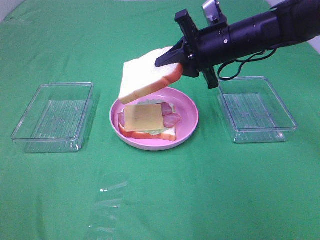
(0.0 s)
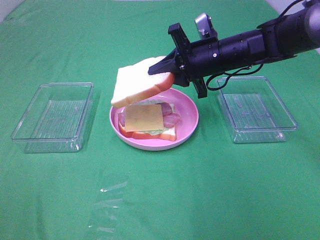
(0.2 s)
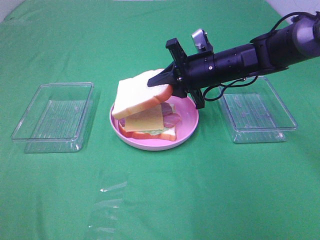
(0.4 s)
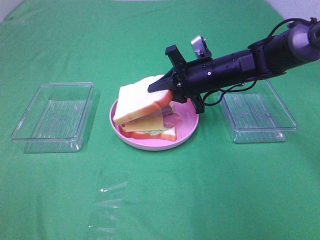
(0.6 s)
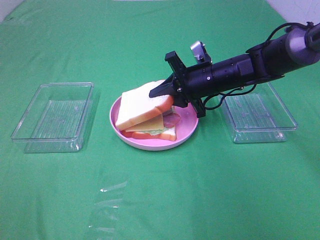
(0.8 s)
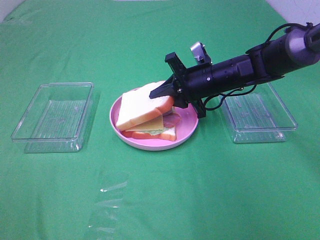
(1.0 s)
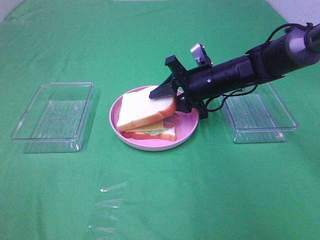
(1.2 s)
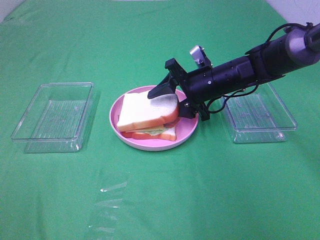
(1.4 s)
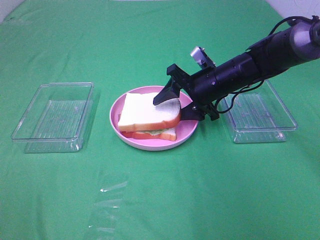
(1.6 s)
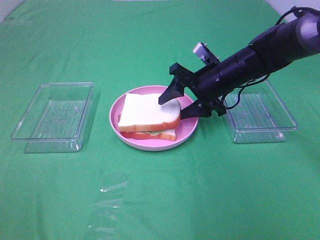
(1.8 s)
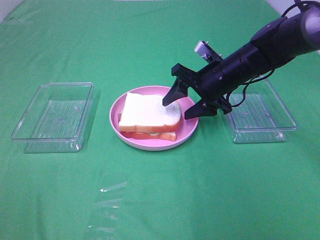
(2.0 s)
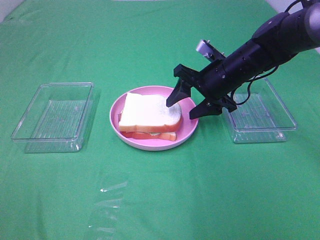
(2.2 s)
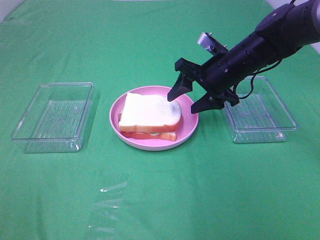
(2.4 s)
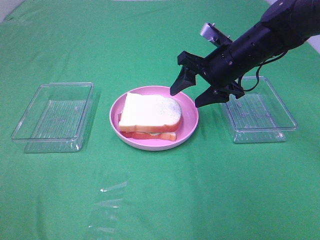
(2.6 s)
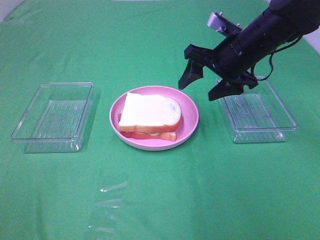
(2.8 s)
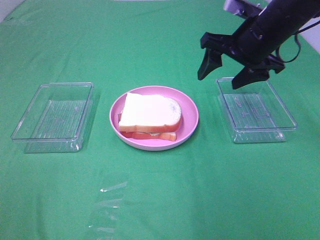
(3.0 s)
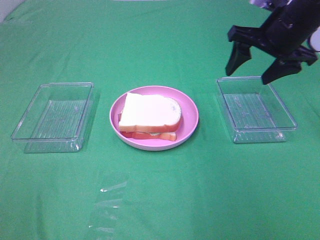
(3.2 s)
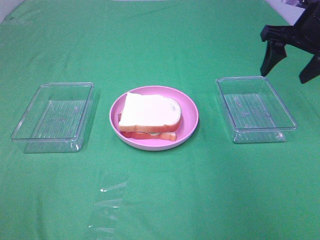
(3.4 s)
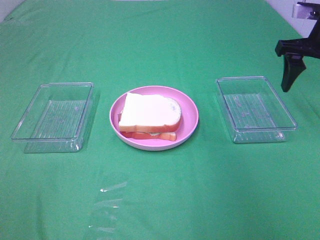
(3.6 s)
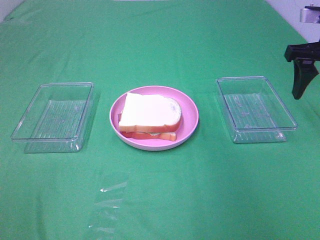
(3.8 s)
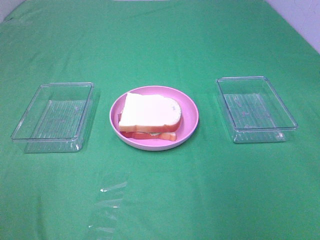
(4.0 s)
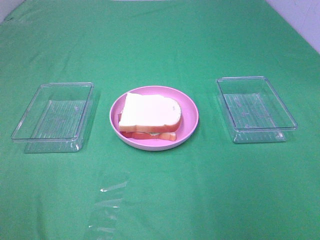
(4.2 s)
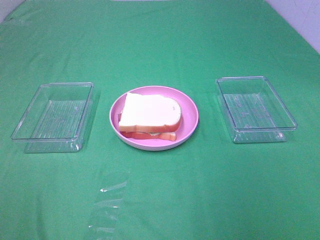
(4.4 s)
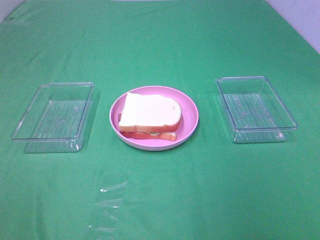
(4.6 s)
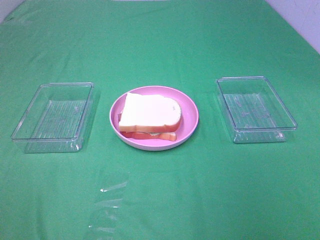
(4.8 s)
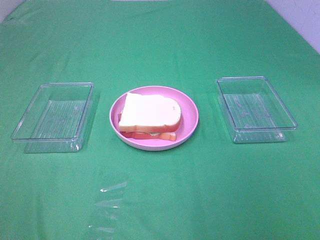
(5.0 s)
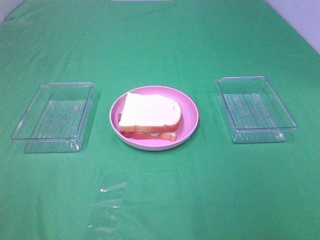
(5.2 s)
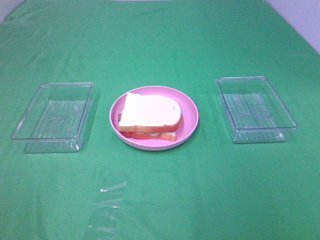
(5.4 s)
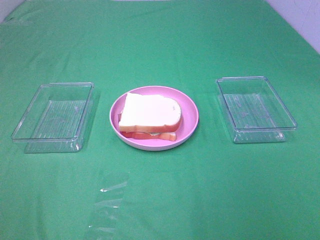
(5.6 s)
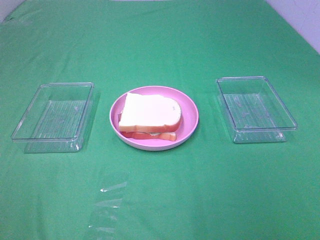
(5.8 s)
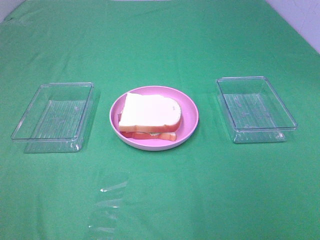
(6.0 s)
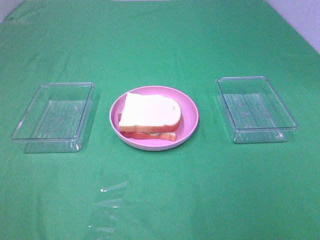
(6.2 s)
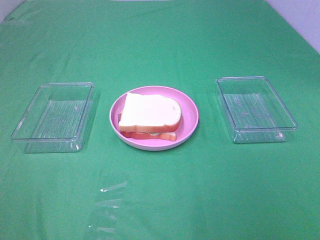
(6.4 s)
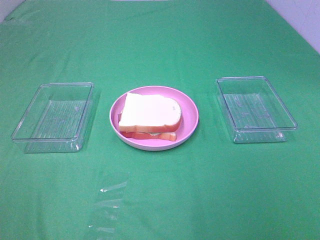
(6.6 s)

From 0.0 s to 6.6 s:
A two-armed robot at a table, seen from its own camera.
Task of the whole recording: Make sandwiches.
Step, from 0.0 s to 2.0 s: Right hand:place the bread slice on the cheese slice.
From 0.0 s to 1.6 s: The right gripper is displaced downward by about 10 cm, and opens its fingers.
From 1.6 s to 3.2 s: The right gripper is displaced upward and to the right by approximately 15 cm.
From 3.2 s to 5.0 s: The right gripper travels backward by about 35 cm.

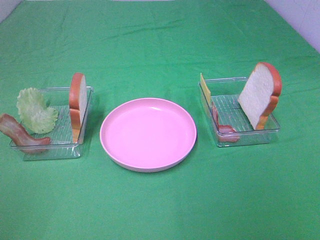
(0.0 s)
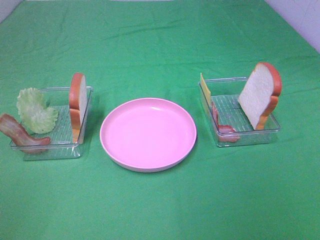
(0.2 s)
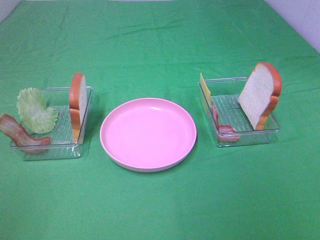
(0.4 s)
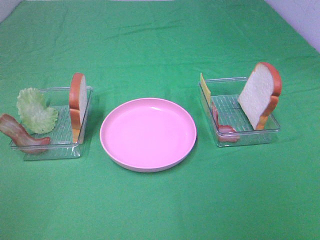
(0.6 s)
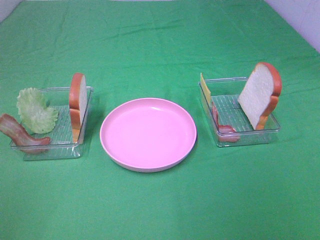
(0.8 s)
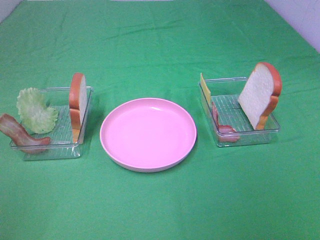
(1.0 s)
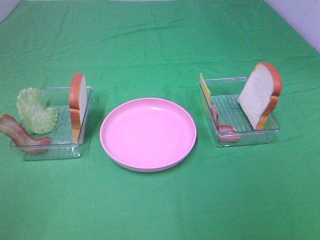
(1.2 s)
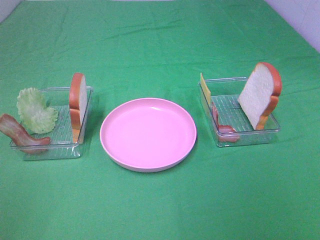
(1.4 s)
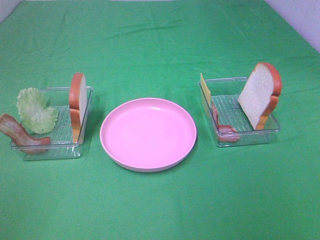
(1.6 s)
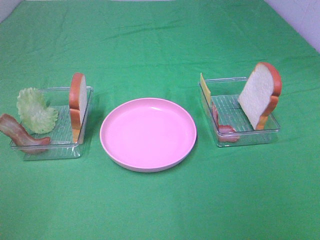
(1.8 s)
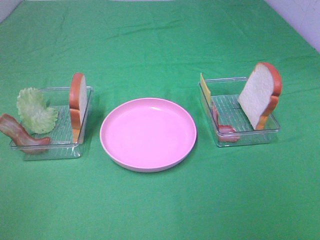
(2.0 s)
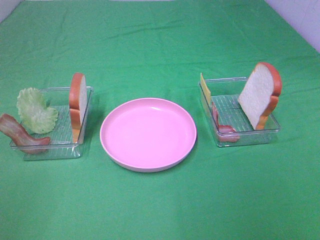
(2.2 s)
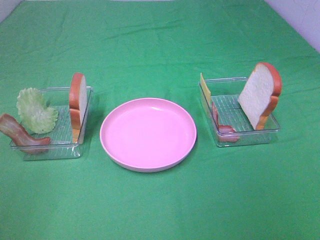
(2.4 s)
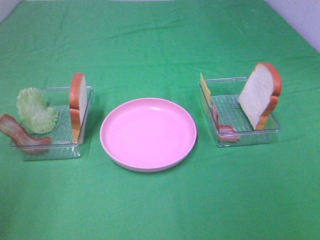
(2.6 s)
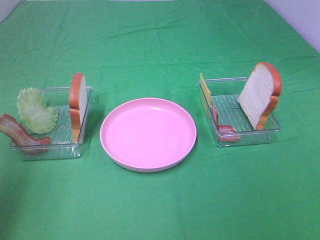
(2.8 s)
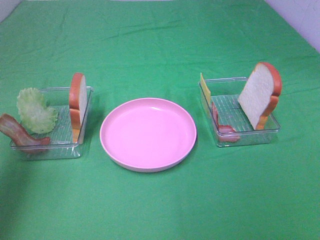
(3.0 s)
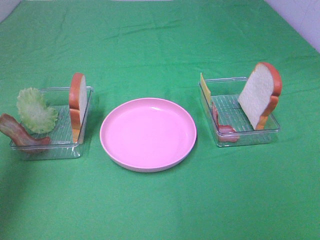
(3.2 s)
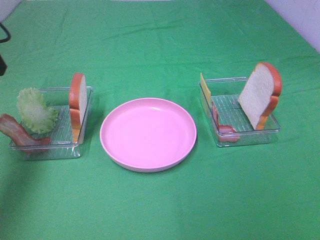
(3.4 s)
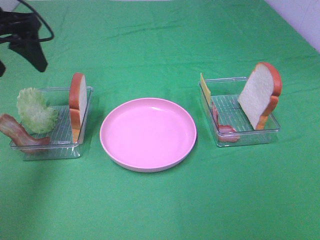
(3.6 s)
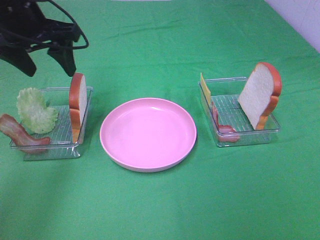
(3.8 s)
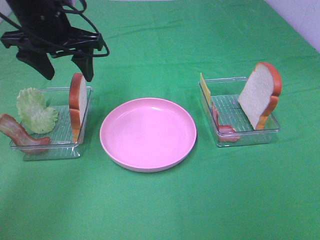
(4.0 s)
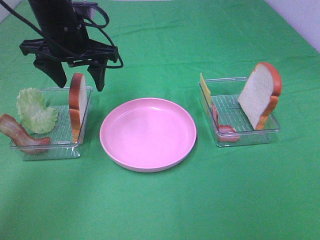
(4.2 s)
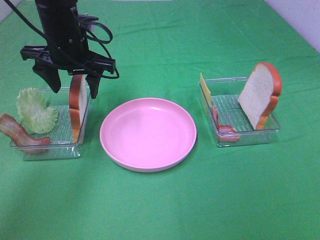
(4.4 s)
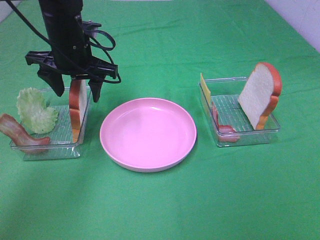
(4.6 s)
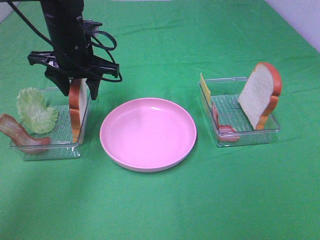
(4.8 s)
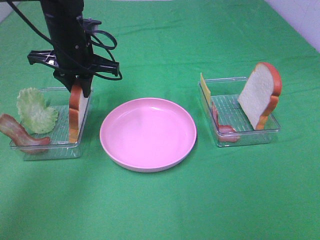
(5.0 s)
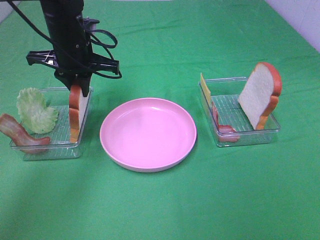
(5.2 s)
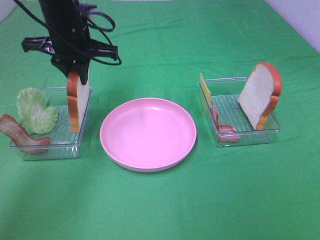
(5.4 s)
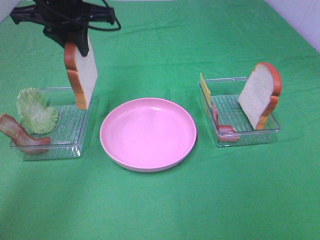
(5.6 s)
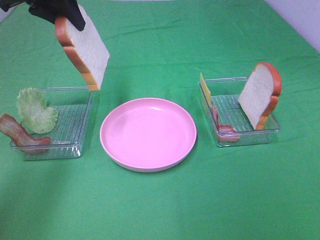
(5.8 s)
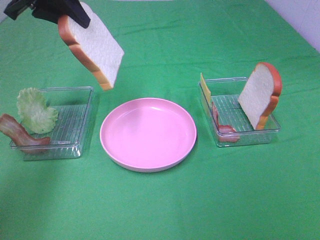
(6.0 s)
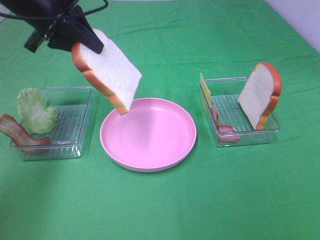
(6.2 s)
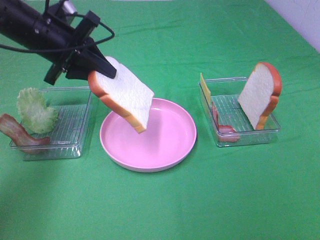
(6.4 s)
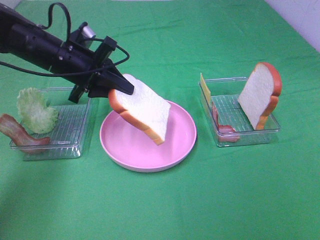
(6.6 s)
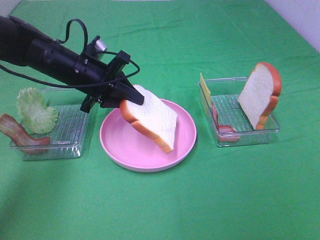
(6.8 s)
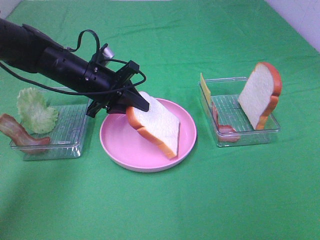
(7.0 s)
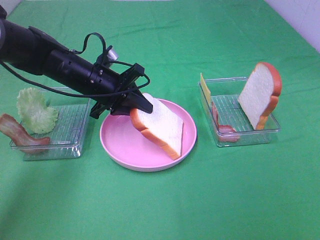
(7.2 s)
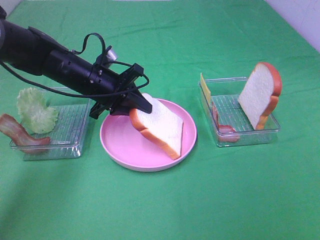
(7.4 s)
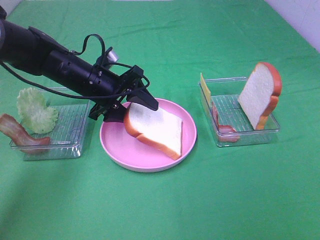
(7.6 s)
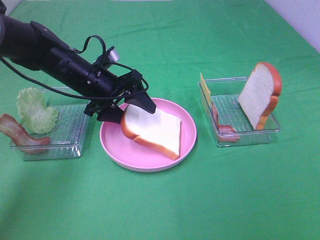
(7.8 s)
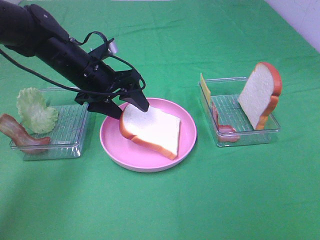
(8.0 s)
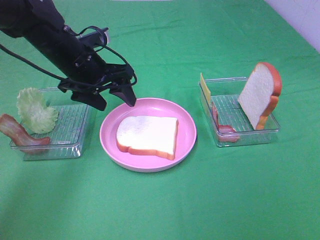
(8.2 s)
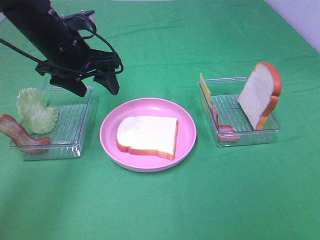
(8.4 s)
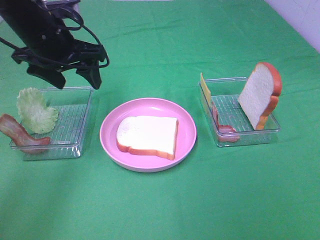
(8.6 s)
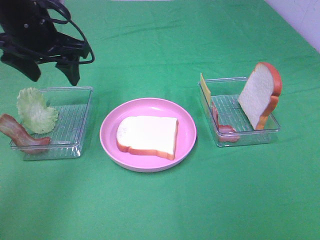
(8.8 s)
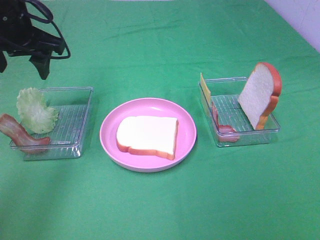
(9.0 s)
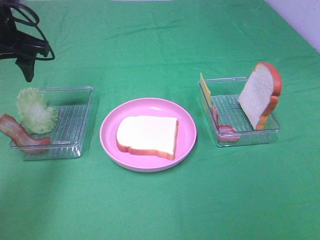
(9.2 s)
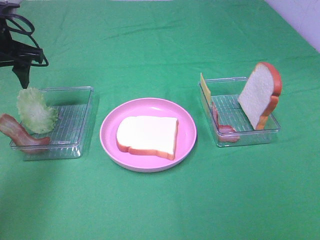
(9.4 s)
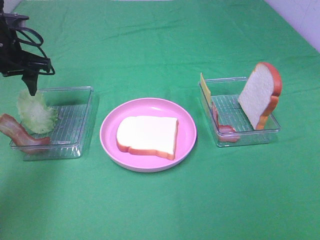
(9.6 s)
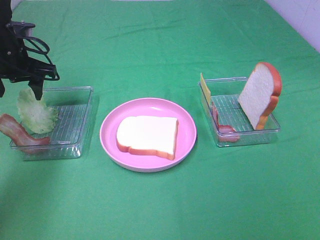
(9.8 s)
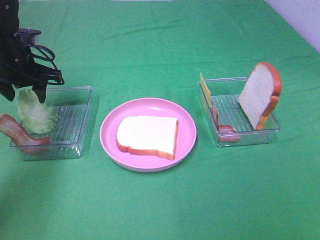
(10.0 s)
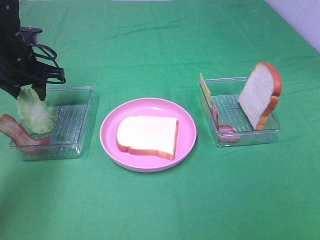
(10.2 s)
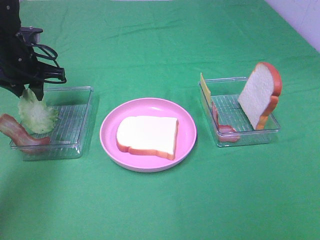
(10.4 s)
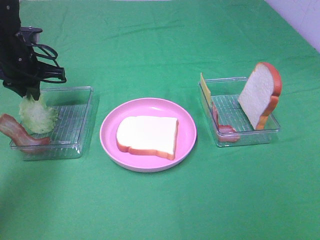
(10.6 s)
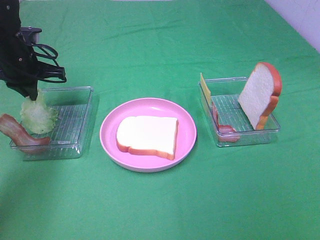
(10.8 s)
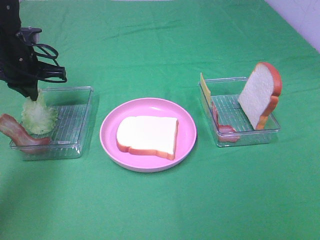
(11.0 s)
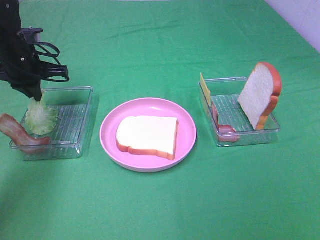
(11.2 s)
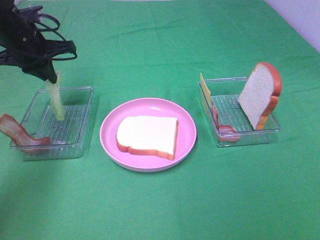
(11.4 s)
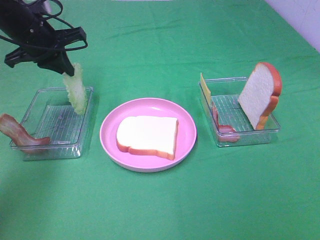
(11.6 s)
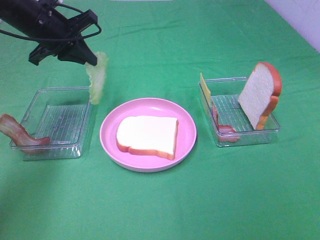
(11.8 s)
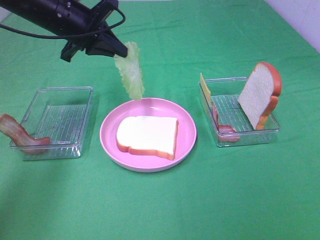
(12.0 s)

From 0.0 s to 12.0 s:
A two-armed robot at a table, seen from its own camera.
Task of the whole recording: Make sandwiches.
Step, from 0.0 s to 5.2 s: Left hand:grab the bread slice.
Step, from 5.4 s to 8.2 s: Left hand:place the bread slice on the plate.
Step, from 8.4 s to 10.6 s: Left hand:grab the lettuce slice.
From 0.0 s to 1.6 s: Neither gripper changes place.
From 1.6 s to 3.0 s: The left gripper moves forward, some 20 cm.
From 3.0 s to 4.4 s: The left gripper goes roughly 30 cm forward, to the right and downward.
From 4.4 s to 6.0 s: The left gripper heads upward and to the left, covering roughly 10 cm, and closes its fingers.
From 6.0 s to 7.6 s: The left gripper heads downward, covering roughly 20 cm, and opens up.
From 7.6 s to 9.0 s: The left gripper moves upward and to the left, approximately 15 cm.
From 9.0 s to 10.4 s: The left gripper travels downward and forward by roughly 10 cm, and closes up.
From 10.4 s to 12.0 s: The left gripper moves to the right and upward, roughly 15 cm, and closes its fingers.

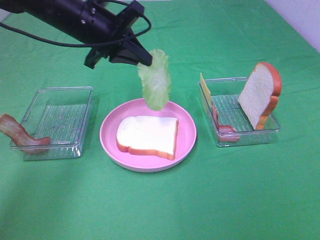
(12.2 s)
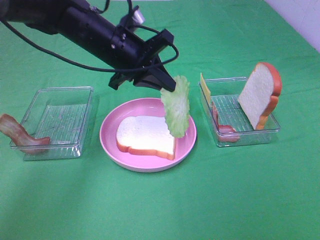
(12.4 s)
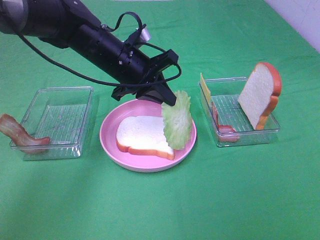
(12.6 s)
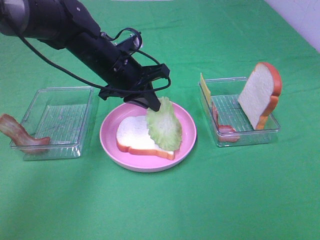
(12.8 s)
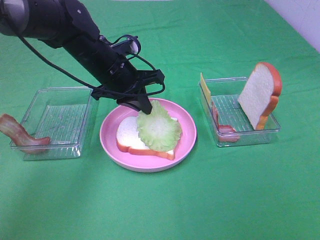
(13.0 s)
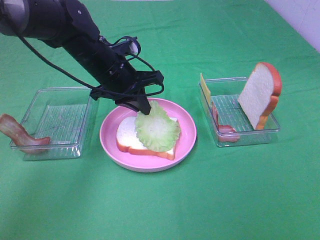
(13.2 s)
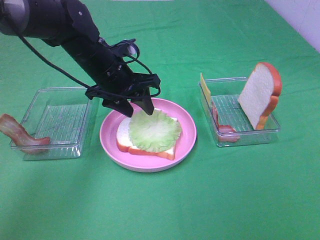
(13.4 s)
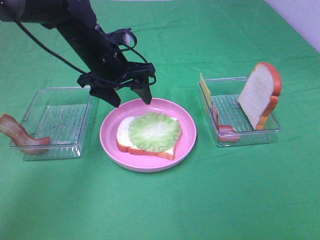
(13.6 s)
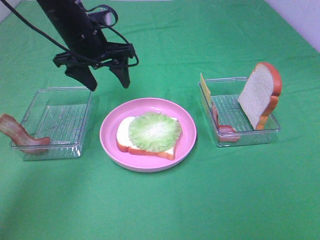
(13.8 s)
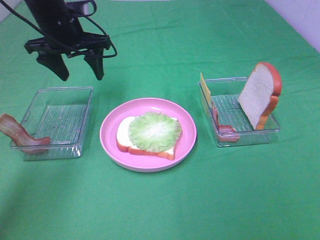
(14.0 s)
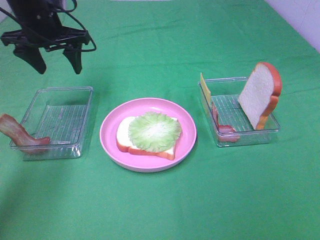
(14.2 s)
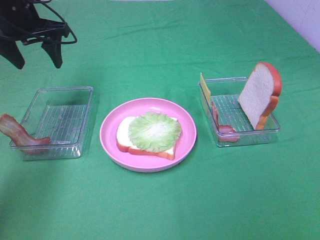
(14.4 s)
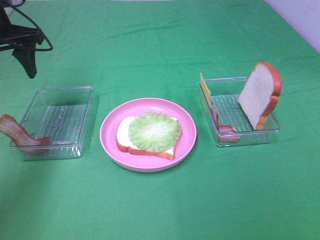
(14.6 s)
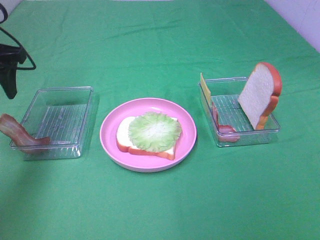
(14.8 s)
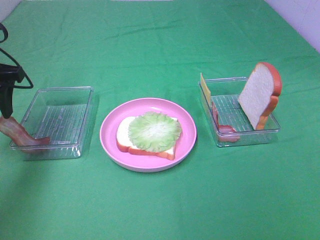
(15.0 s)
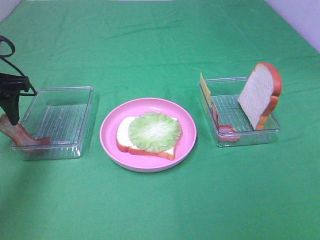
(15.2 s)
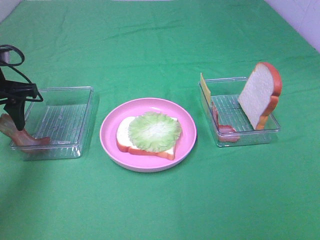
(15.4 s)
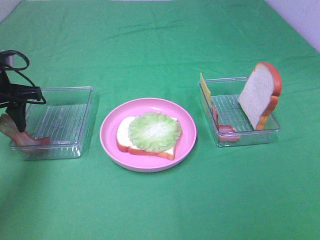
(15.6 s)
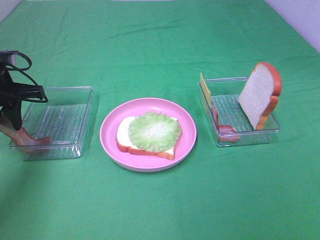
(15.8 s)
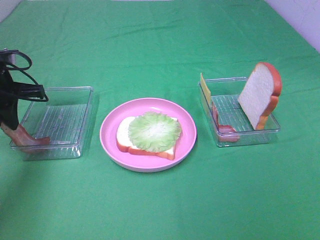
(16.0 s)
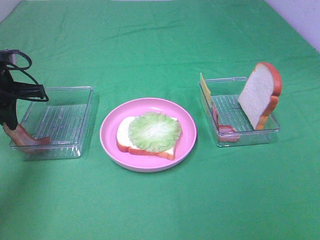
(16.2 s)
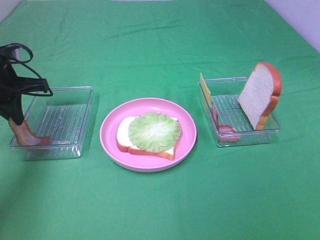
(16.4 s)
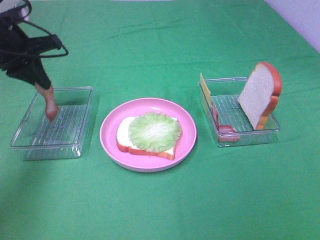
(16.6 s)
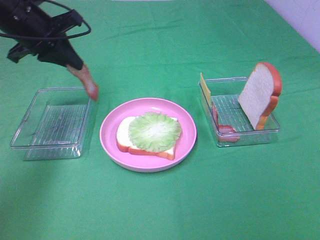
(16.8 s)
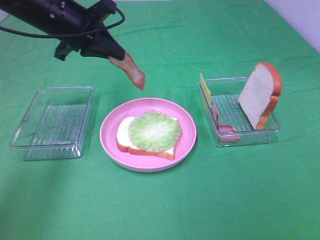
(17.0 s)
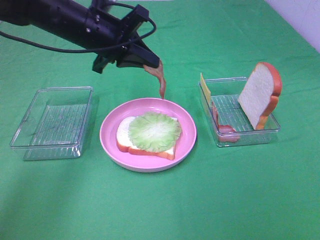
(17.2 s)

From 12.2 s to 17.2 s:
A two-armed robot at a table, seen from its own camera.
Task of the whole recording: Make sandwiches.
Step, from 13.8 s to 16.2 s: Left hand:grab the bacon.
From 12.2 s to 13.8 s: The left gripper opens up.
From 13.8 s to 15.6 s: The left gripper heads to the left and backward, covering about 15 cm.
From 15.6 s to 17.2 s: The left gripper heads to the right, covering some 20 cm, and closes.
